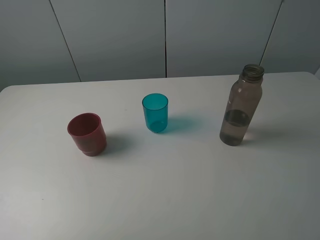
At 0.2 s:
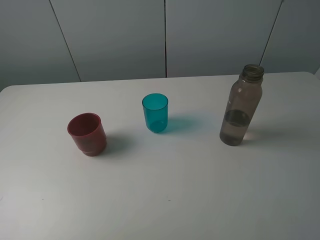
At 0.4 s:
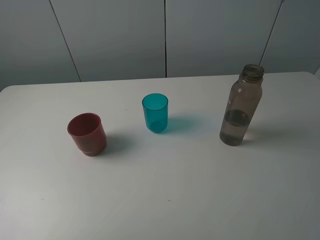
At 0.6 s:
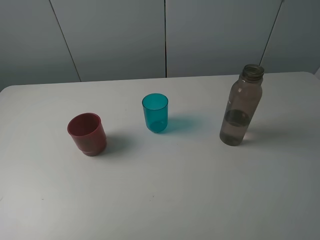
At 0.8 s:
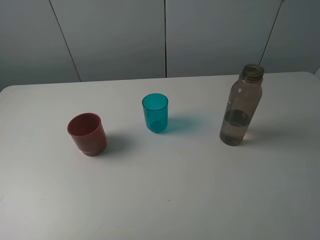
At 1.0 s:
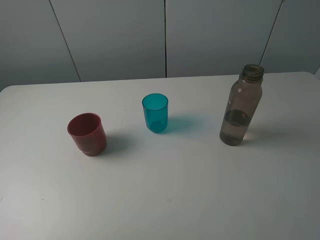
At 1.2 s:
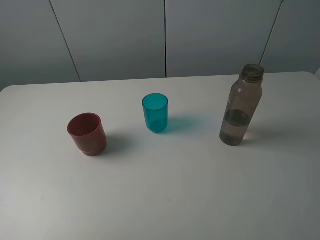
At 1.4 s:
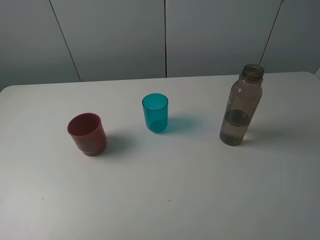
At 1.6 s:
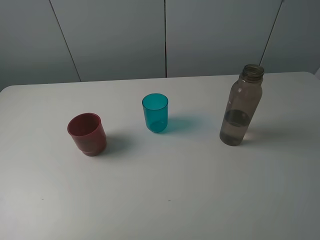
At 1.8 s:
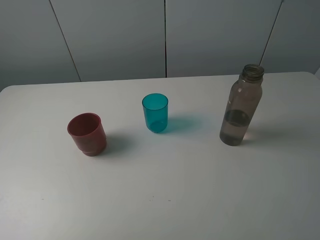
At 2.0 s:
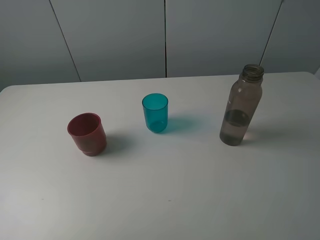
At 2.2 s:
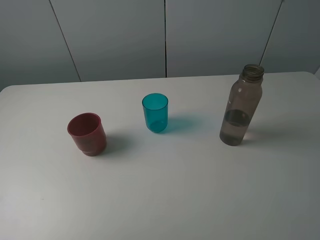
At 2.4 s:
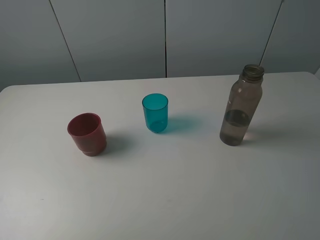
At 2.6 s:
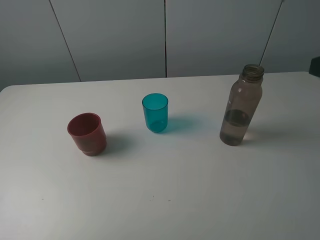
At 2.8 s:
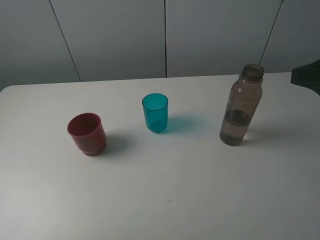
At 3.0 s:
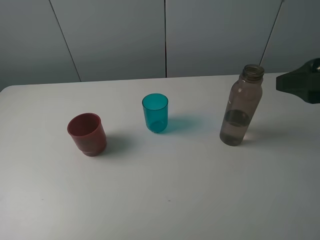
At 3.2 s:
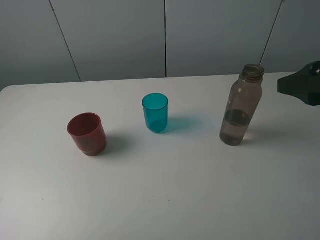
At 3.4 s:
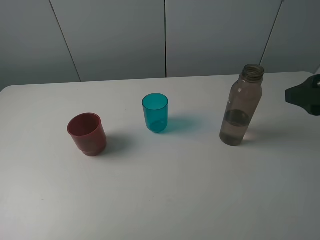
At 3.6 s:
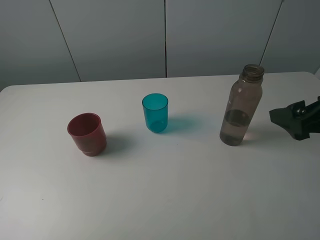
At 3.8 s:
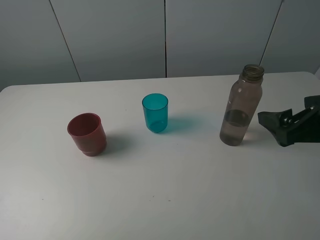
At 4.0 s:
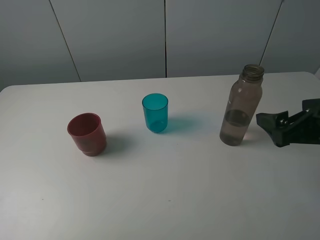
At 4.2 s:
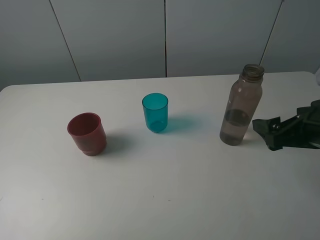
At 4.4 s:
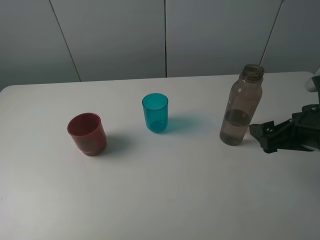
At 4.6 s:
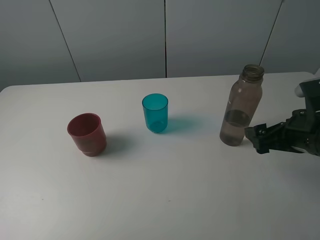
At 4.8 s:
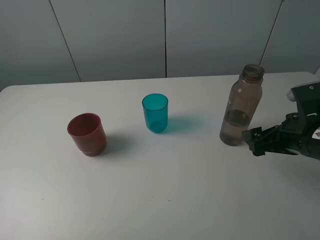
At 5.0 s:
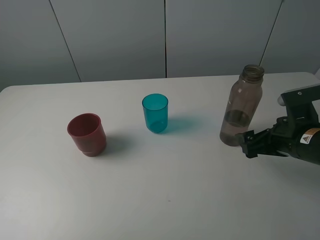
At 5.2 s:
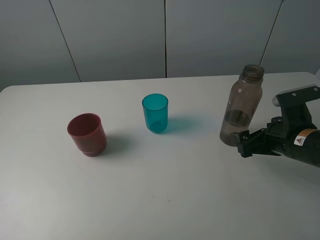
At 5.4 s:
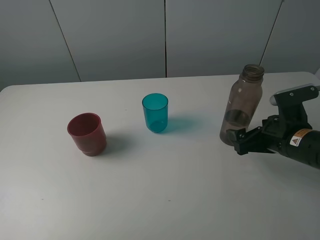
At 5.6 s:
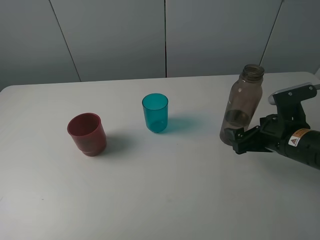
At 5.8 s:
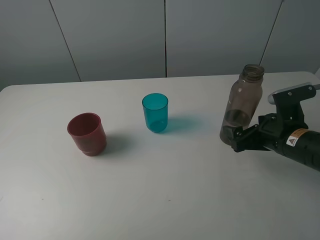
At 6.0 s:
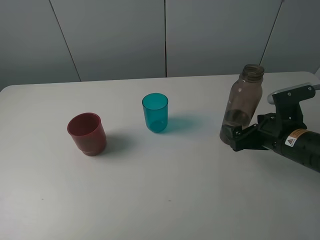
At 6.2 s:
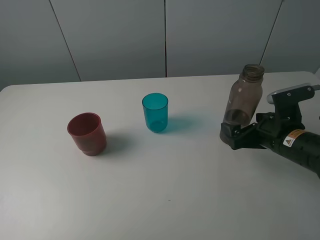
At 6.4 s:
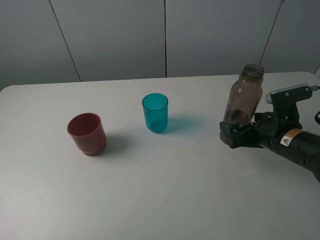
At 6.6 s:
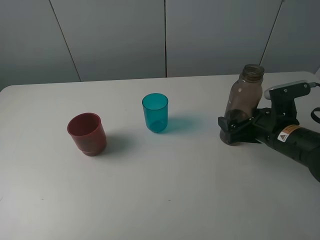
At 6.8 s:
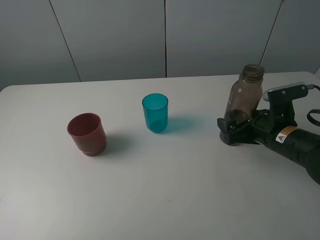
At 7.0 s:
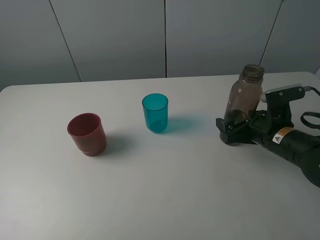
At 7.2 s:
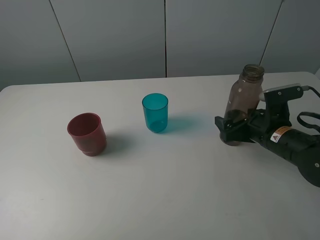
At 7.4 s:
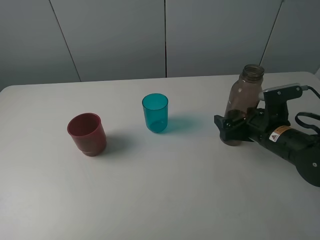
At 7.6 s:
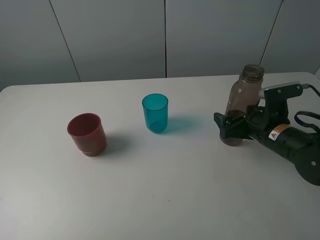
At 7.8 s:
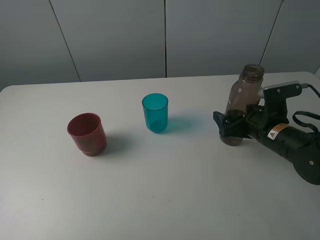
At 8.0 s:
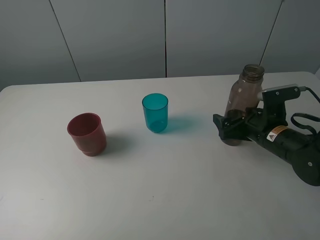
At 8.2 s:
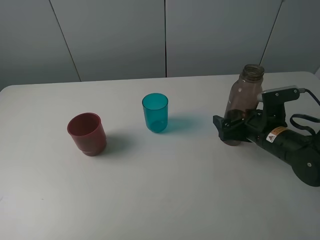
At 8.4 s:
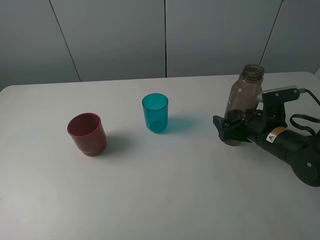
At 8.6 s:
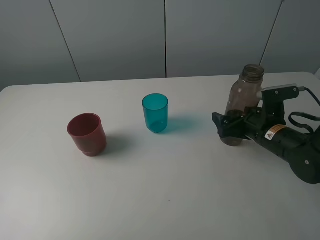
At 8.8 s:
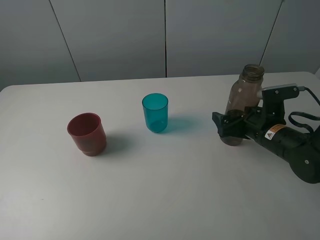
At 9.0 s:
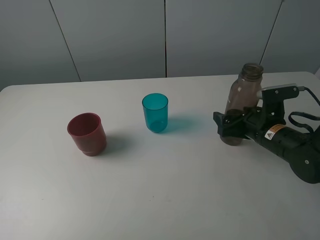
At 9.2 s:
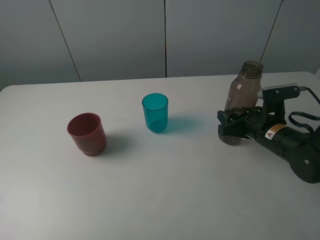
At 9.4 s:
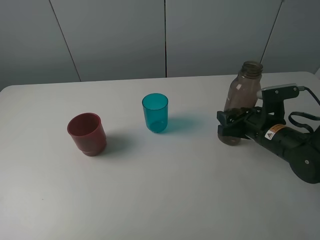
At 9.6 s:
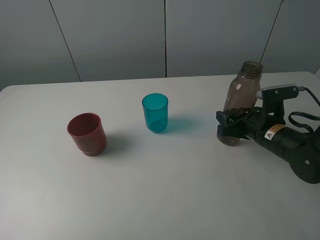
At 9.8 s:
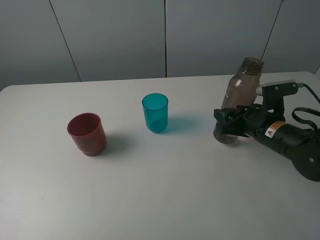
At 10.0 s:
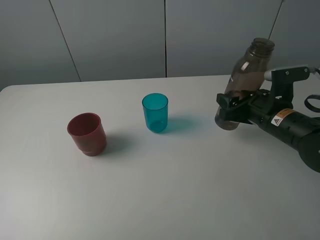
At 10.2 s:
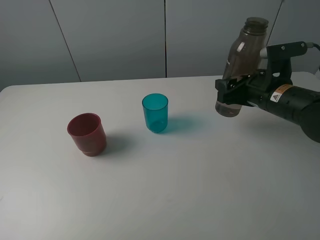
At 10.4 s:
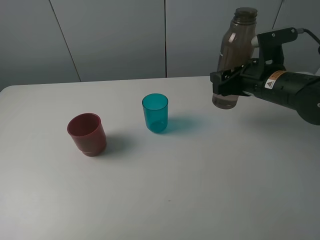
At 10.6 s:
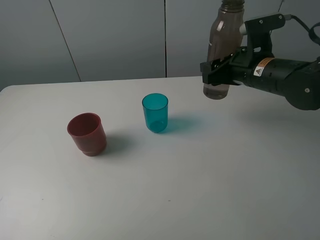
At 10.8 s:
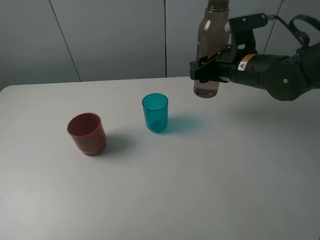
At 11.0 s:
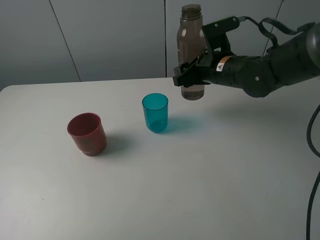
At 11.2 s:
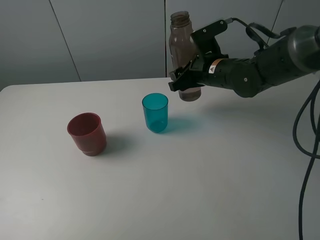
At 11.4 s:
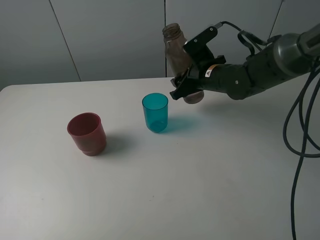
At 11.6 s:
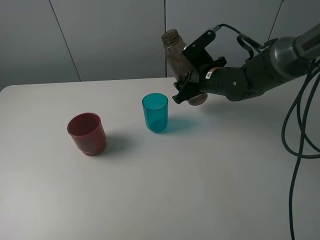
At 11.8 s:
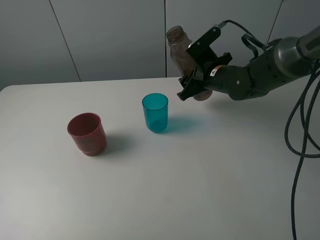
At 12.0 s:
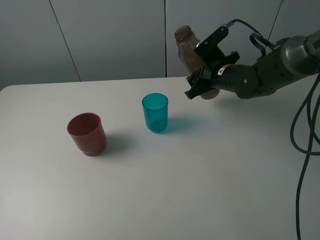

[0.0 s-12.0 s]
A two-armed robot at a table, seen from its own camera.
Task of the whole recording: pick up the bottle and pour water into the cup, then pick up the cup containing water and pour it into another cup.
Step, 0.0 to 9.2 s: Grasp the brown bottle with the right gripper.
1.6 to 3.0 s: The right gripper goes approximately 15 cm forward.
3.0 to 4.4 s: The right gripper shifts some 10 cm downward.
4.4 to 6.0 s: The right gripper is displaced downward by approximately 5 cm.
6.0 to 7.6 s: There are only small adjustments of the grippers.
7.6 to 9.0 s: The right gripper closes.
9.0 to 10.4 s: The right gripper shifts about 10 cm upward, and closes.
10.4 to 12.0 s: The right gripper shifts some 10 cm forward and to the left.

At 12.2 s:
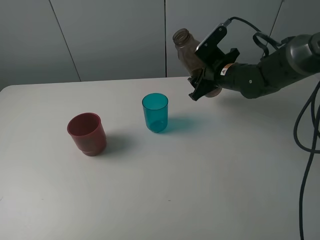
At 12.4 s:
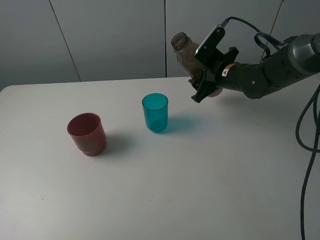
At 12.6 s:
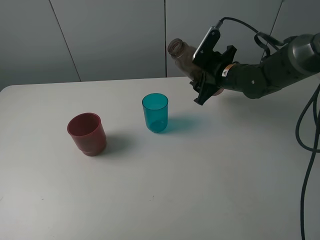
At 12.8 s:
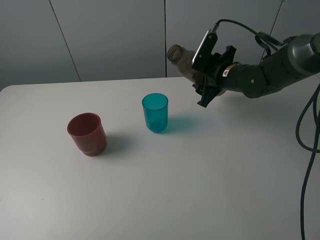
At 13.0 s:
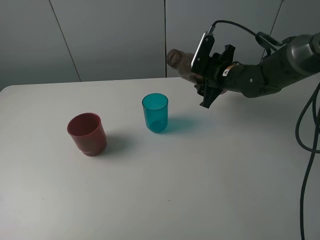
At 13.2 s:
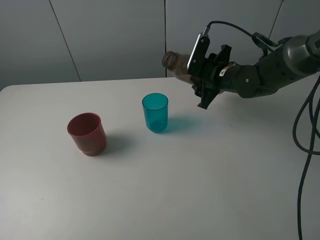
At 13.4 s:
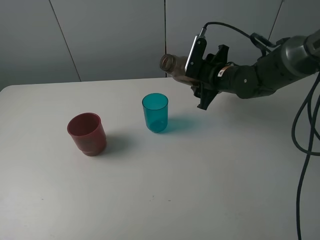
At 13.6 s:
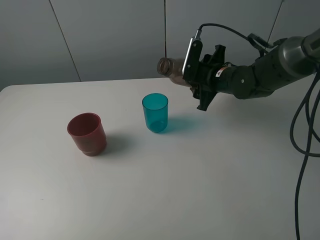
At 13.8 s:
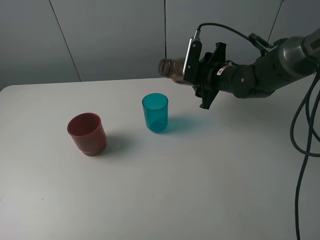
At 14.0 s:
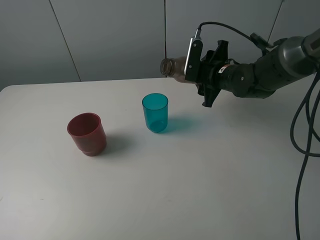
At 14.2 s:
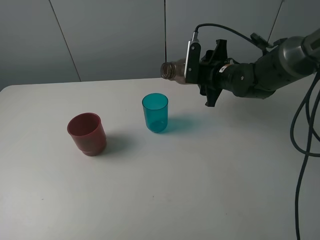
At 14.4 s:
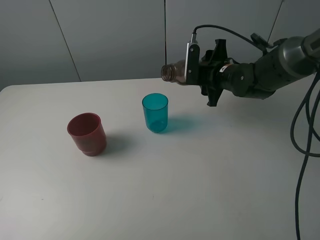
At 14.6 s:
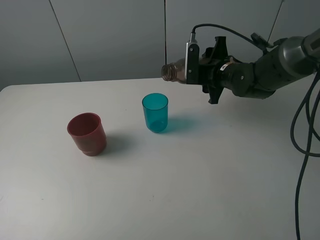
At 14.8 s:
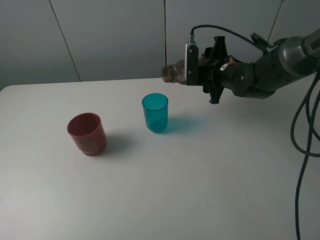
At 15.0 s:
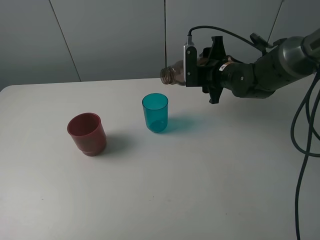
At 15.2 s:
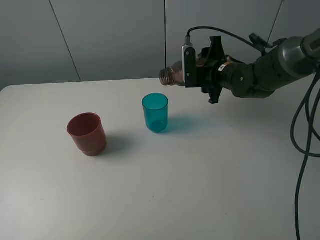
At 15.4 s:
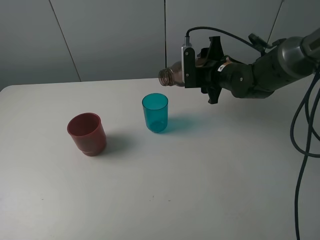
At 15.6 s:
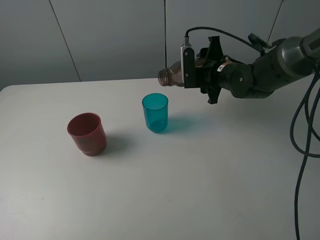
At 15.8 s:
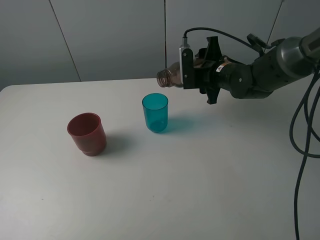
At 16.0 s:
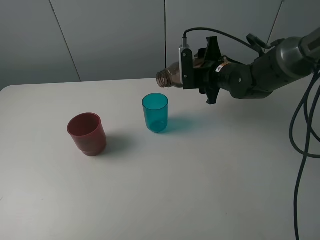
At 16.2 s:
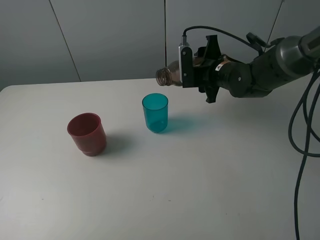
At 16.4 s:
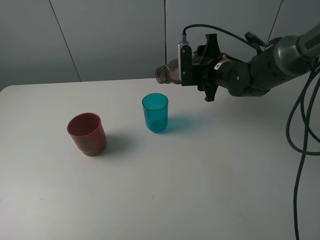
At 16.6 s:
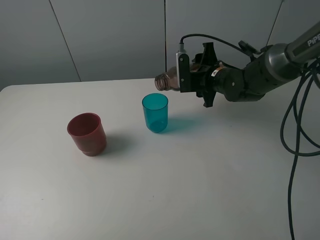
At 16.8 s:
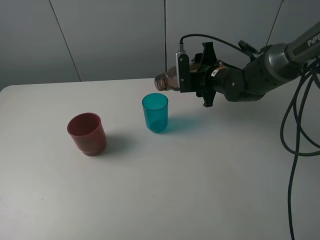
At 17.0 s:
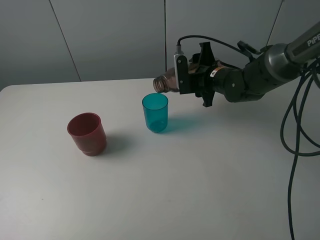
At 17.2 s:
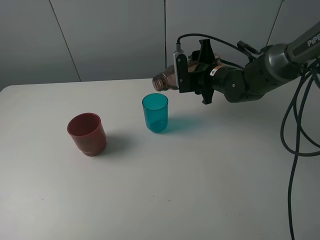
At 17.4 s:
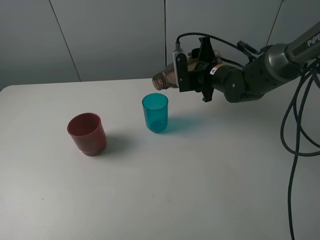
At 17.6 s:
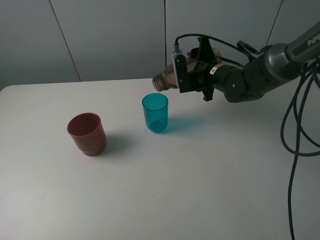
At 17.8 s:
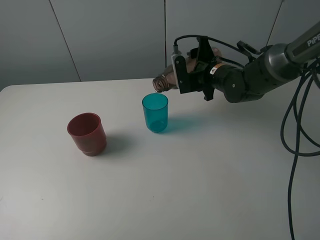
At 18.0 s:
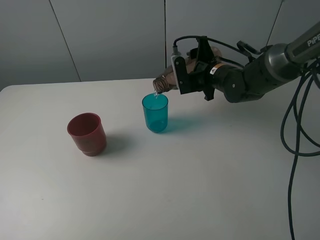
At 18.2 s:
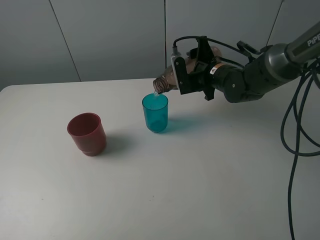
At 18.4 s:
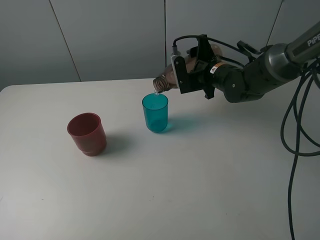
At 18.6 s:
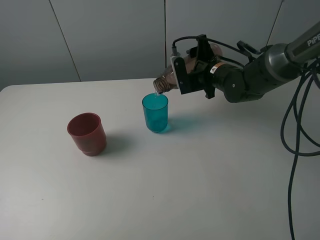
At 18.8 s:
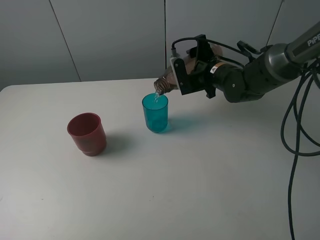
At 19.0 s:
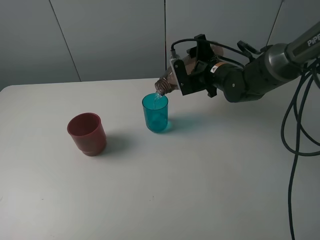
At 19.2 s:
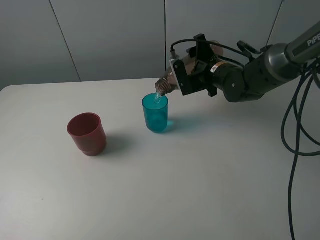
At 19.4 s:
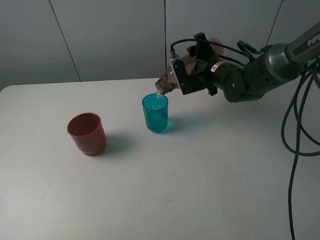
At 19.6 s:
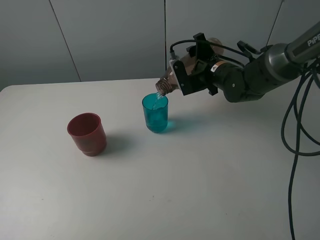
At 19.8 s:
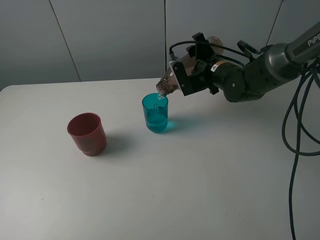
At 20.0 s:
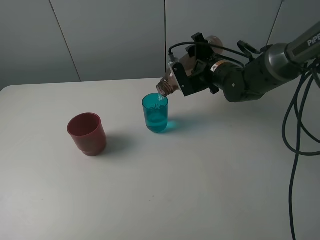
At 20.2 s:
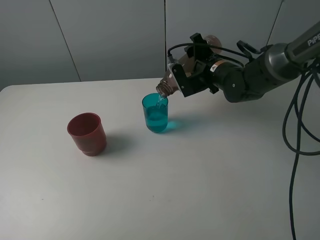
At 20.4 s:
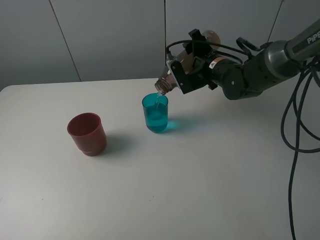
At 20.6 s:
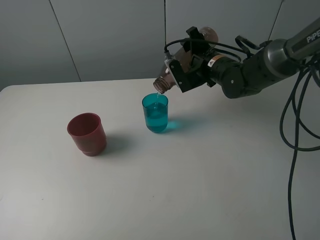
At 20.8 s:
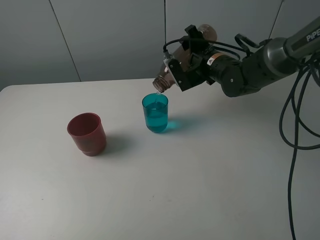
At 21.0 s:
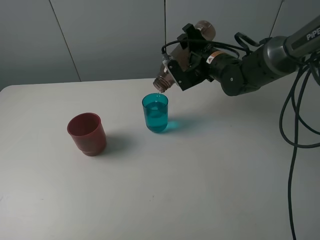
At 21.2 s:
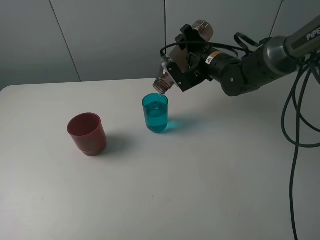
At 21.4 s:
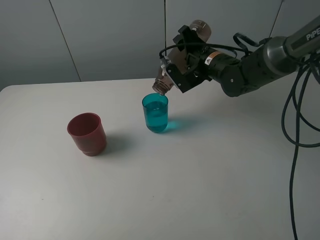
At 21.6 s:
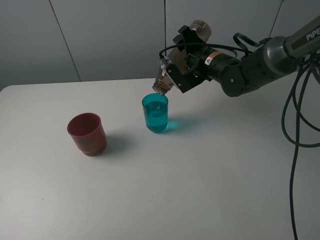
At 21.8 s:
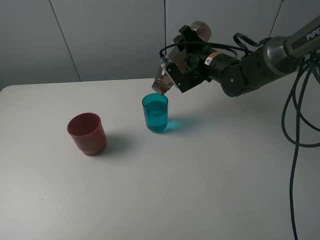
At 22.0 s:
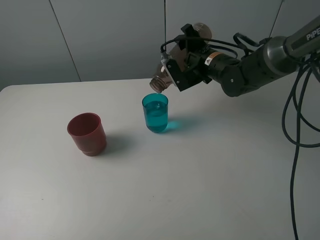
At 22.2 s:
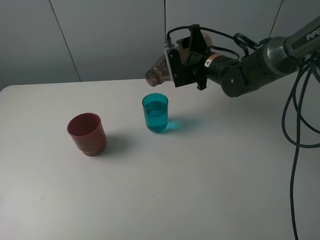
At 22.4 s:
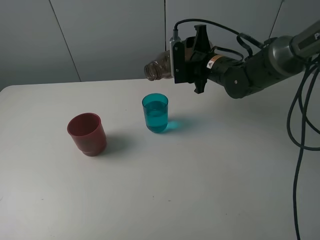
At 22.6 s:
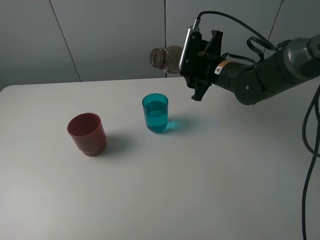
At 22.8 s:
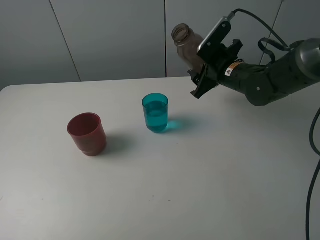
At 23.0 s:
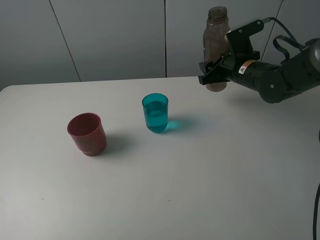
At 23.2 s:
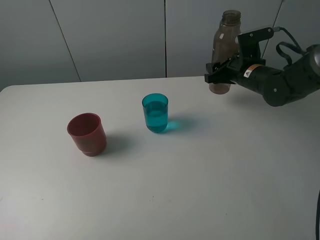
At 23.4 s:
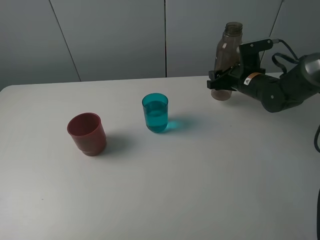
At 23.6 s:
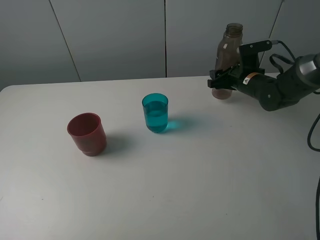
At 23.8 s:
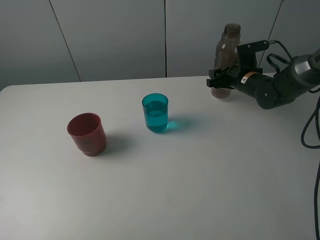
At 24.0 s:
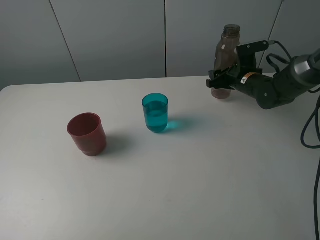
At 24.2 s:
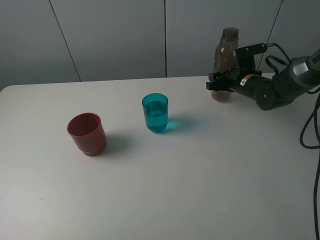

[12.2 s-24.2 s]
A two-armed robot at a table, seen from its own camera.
Task of the whole recording: pick up the bottle and pour water into the cup, then pick up the cup containing water and pour it into another cup.
Step, 12.2 to 22.0 s: Pour water from brown bottle to blue cup with the right gripper.
13.8 to 16.6 s: The grippers move only a little.
16.6 to 18.2 s: There are only small adjustments of the grippers.
18.2 to 19.8 s: The grippers make only small movements.
19.8 to 21.2 s: The grippers move only a little.
22.6 to 24.2 s: The right gripper shifts roughly 10 cm to the right, downward and forward.
